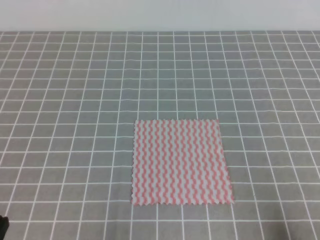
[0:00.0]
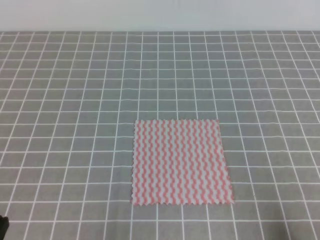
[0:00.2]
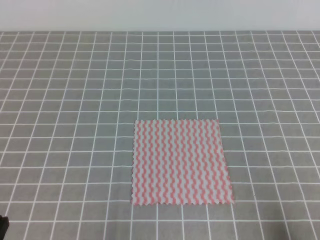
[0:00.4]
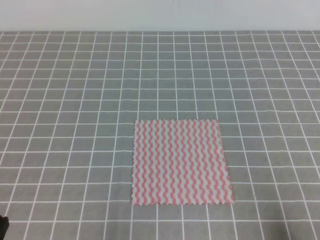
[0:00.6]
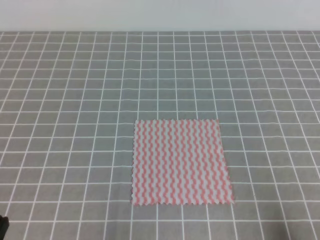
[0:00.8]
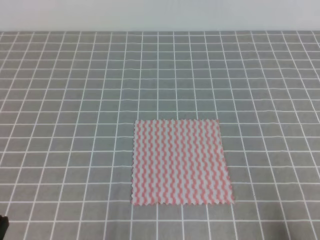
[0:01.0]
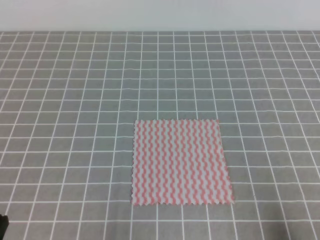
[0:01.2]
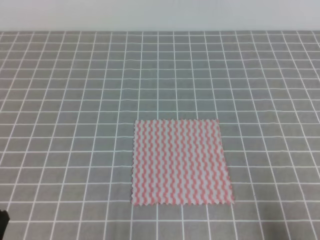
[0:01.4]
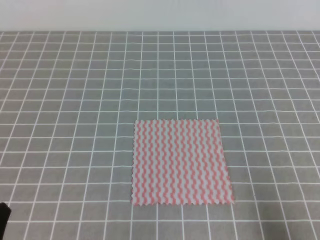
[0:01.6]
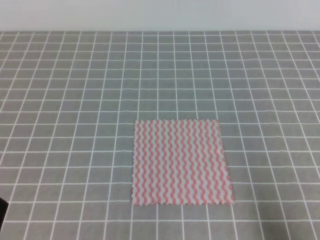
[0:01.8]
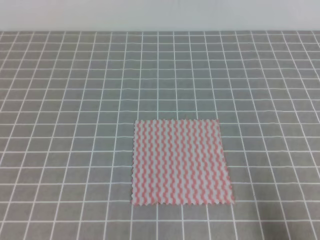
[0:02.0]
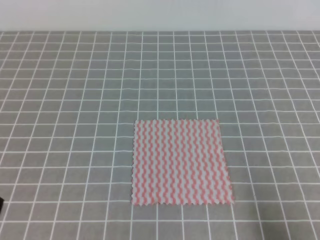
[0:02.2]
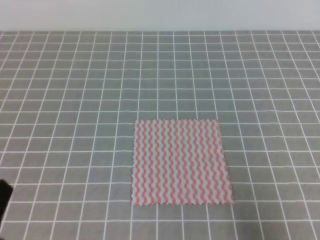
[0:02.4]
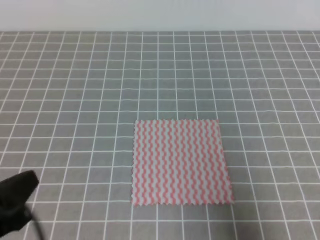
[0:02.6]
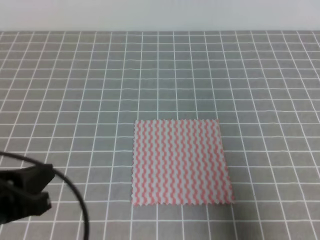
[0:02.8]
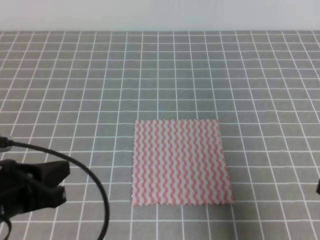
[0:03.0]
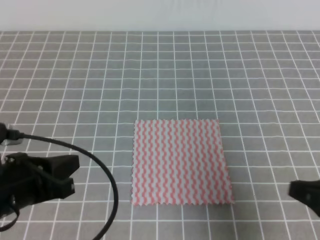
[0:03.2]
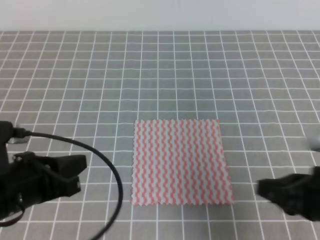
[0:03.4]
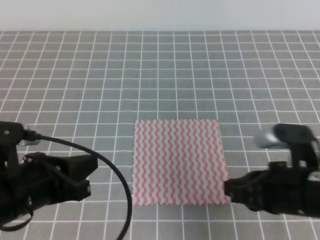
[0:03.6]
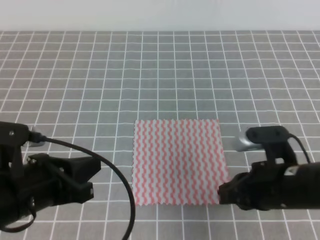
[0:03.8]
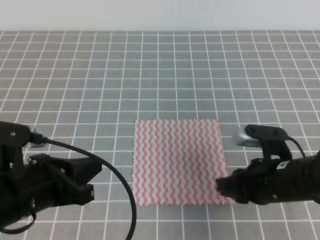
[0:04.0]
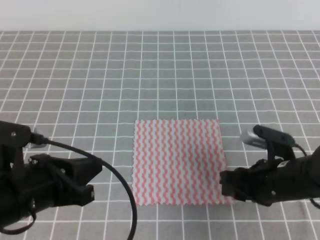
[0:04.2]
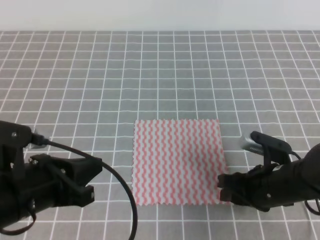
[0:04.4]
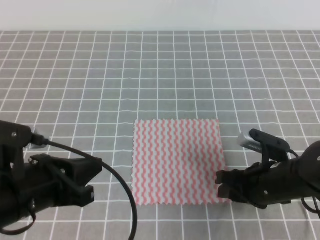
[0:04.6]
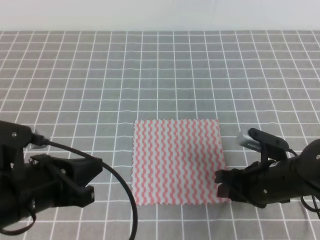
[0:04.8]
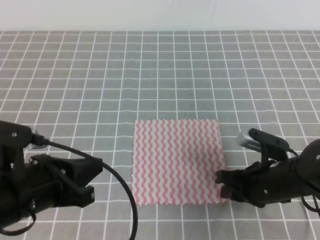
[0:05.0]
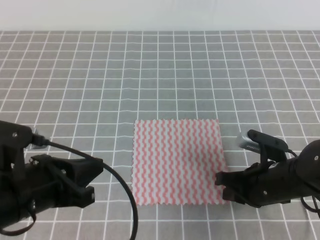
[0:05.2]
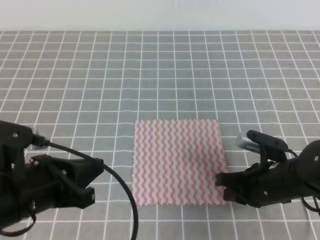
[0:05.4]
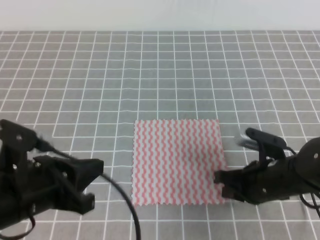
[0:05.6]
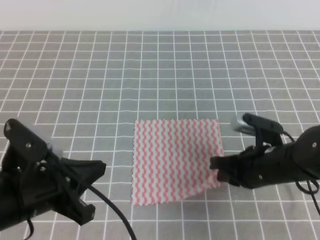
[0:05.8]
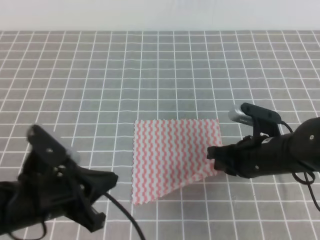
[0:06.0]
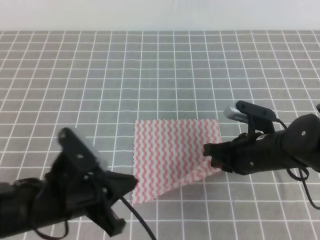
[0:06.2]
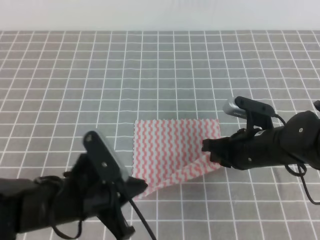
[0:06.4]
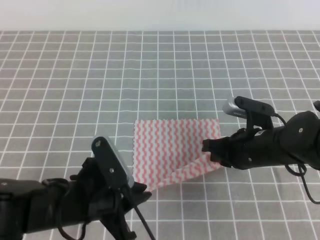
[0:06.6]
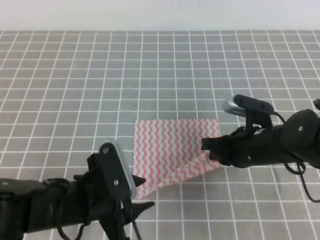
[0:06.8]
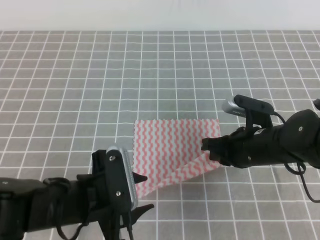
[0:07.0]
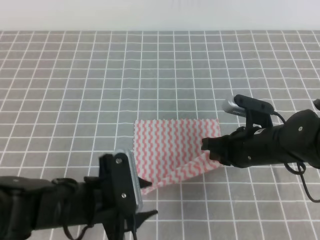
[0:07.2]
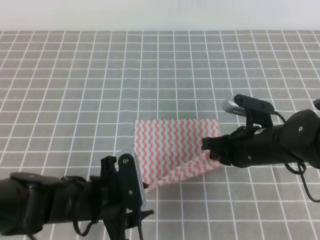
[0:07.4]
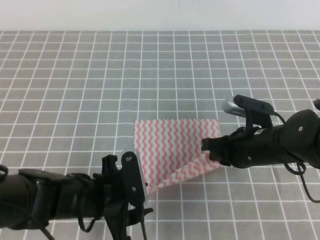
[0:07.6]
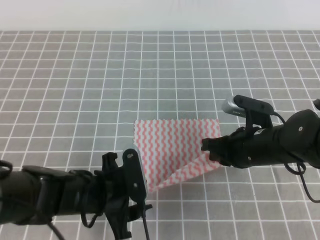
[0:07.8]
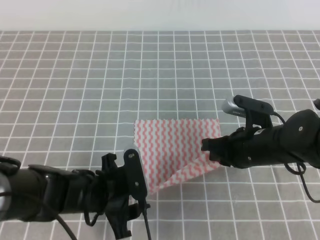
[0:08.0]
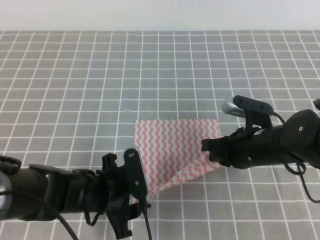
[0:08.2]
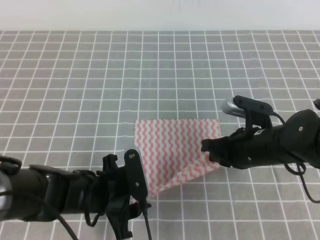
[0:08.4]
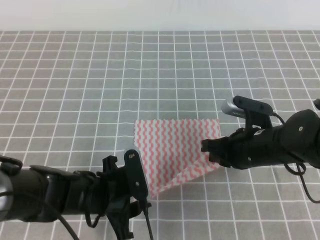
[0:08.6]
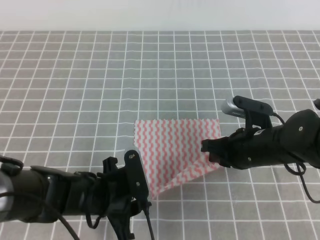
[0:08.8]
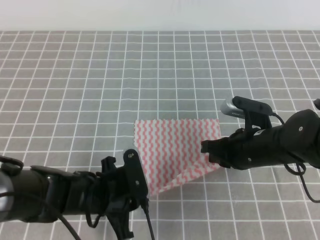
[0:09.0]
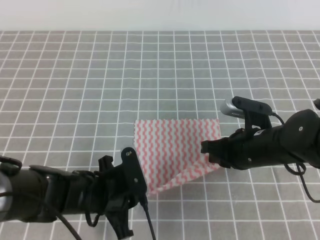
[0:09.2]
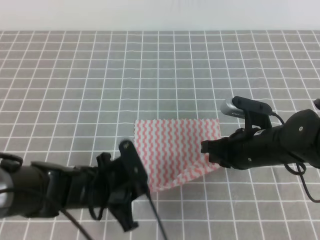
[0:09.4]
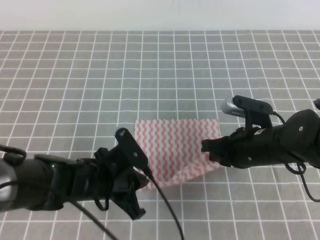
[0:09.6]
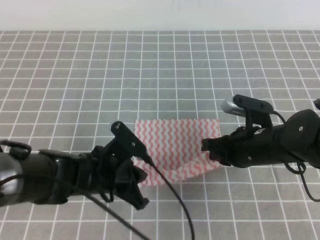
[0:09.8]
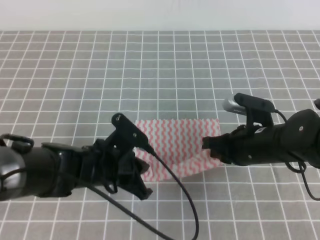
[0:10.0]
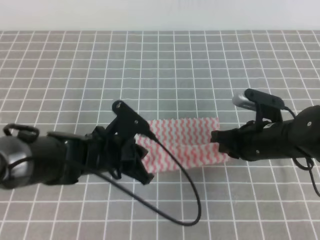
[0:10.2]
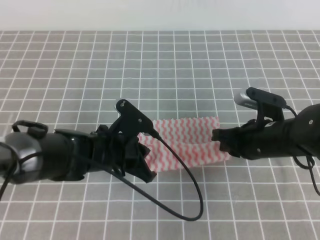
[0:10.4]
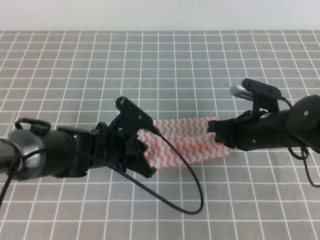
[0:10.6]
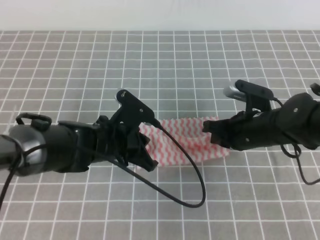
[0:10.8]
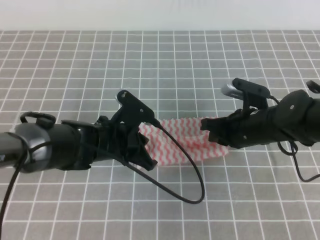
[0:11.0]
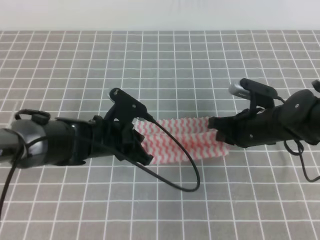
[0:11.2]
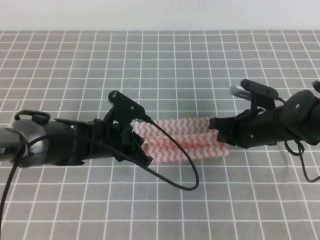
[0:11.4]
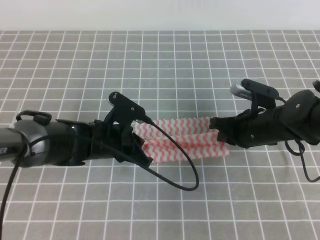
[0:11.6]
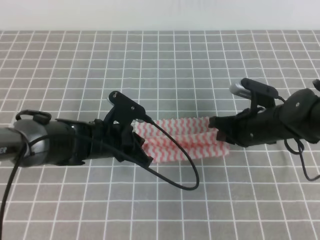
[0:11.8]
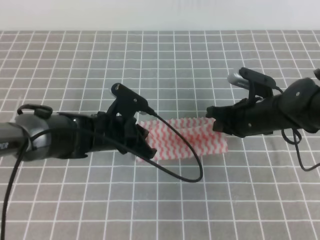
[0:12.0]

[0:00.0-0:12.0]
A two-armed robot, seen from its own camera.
0:01.6 to 0:03.0: Both grippers travel together forward and upward, some 10 cm.
0:03.0 to 0:04.4: The right gripper is displaced forward, to the left and downward by about 20 cm, and opens its fingers.
0:04.4 to 0:06.0: The right gripper closes.
0:06.0 to 0:07.6: The left gripper travels downward and to the right by some 10 cm, and opens its fingers.
0:07.6 to 0:09.0: The left gripper closes.
0:09.0 to 0:10.4: The left gripper travels forward by some 5 cm.

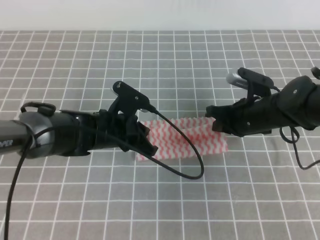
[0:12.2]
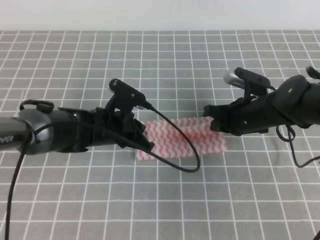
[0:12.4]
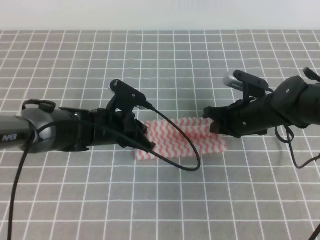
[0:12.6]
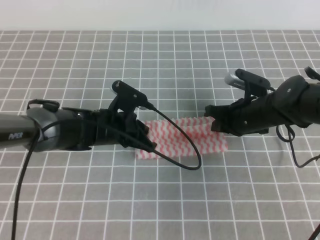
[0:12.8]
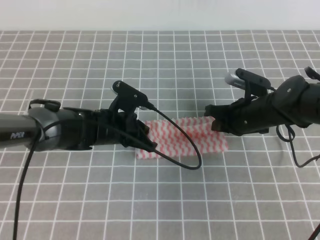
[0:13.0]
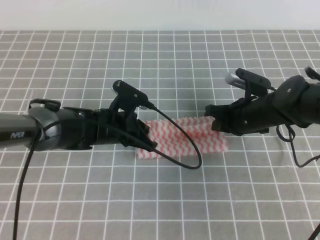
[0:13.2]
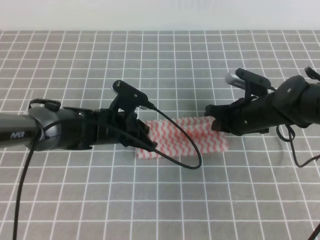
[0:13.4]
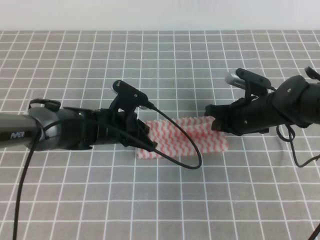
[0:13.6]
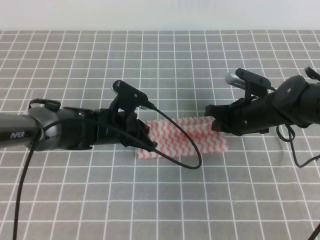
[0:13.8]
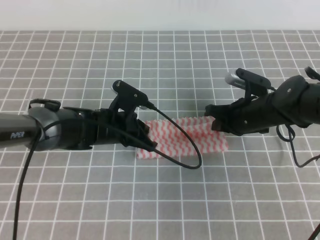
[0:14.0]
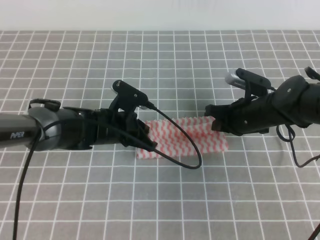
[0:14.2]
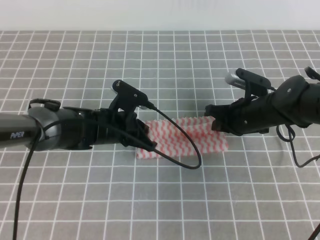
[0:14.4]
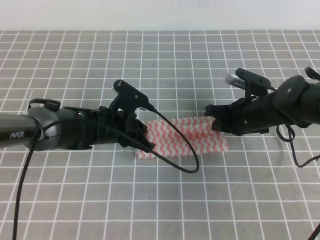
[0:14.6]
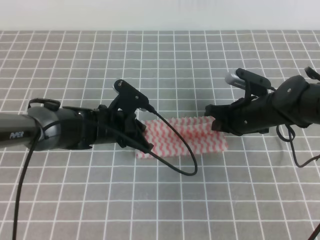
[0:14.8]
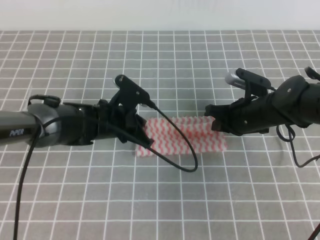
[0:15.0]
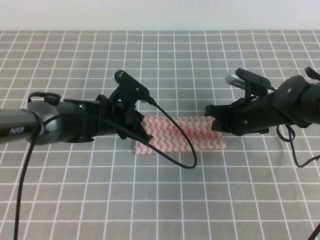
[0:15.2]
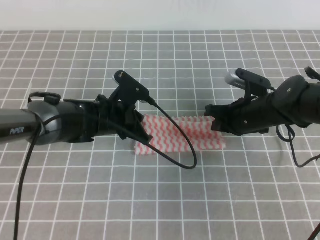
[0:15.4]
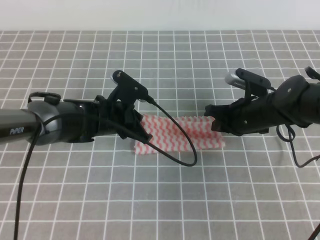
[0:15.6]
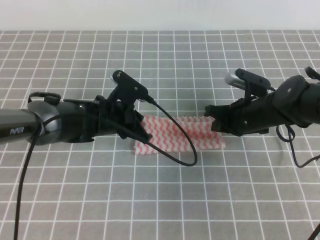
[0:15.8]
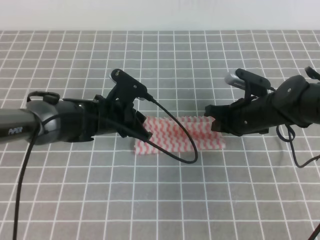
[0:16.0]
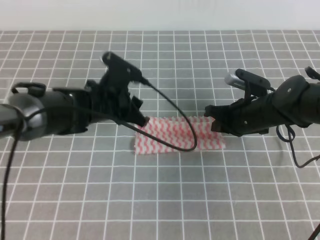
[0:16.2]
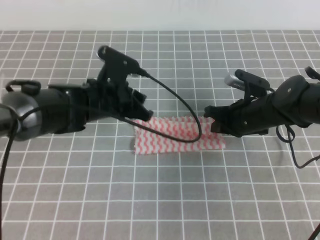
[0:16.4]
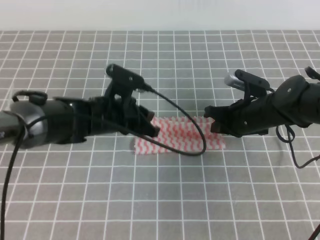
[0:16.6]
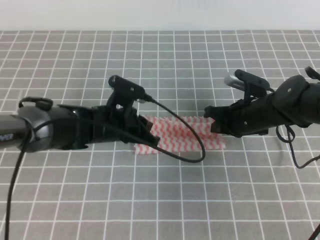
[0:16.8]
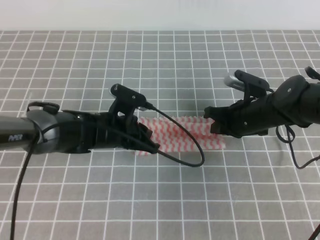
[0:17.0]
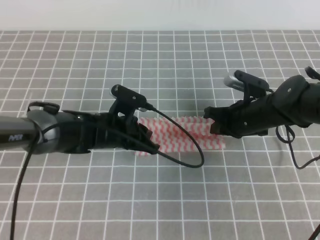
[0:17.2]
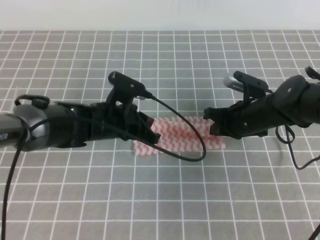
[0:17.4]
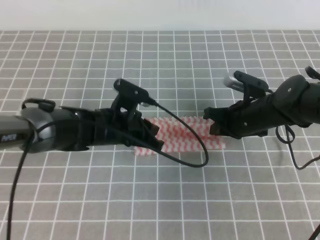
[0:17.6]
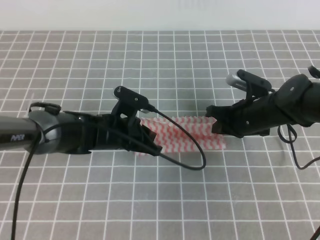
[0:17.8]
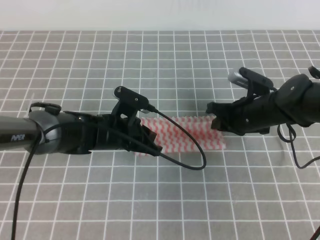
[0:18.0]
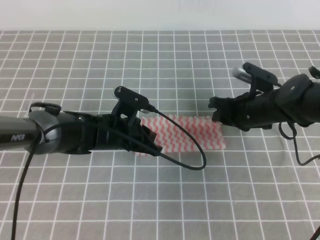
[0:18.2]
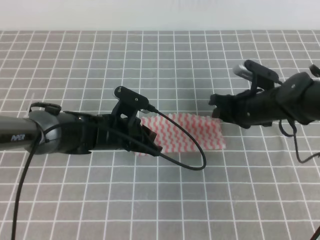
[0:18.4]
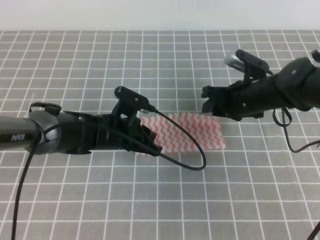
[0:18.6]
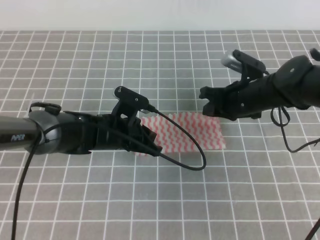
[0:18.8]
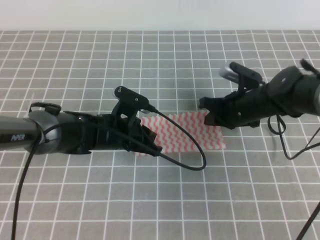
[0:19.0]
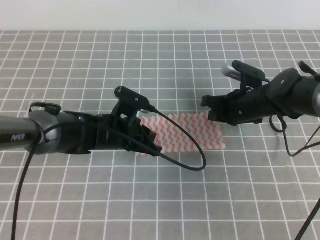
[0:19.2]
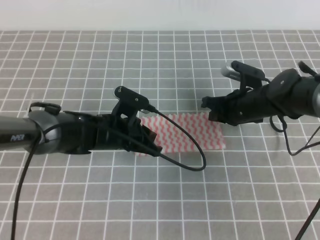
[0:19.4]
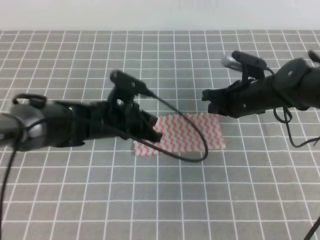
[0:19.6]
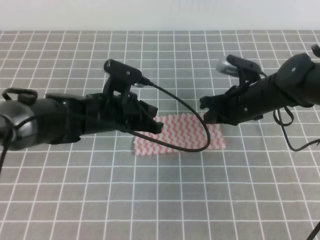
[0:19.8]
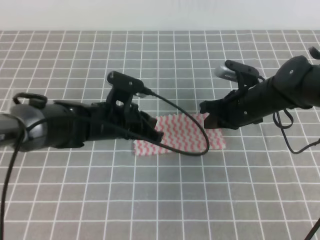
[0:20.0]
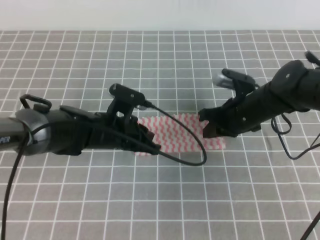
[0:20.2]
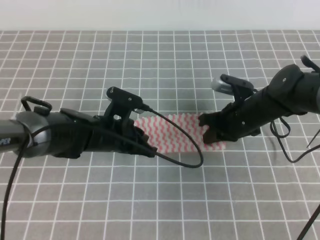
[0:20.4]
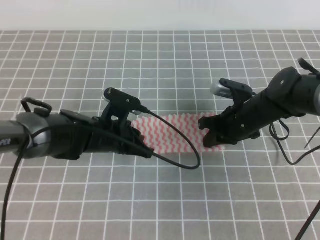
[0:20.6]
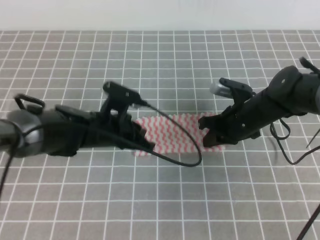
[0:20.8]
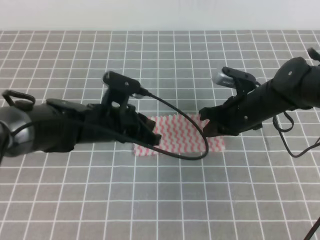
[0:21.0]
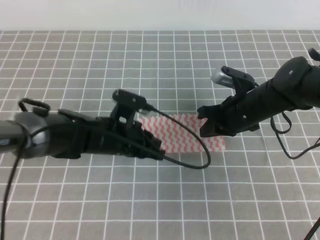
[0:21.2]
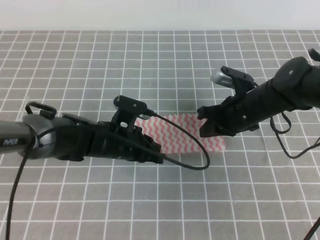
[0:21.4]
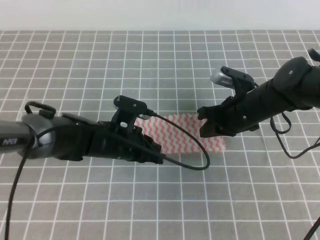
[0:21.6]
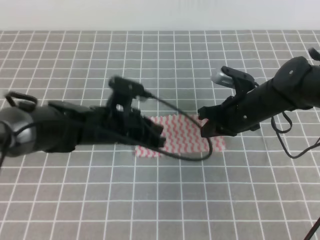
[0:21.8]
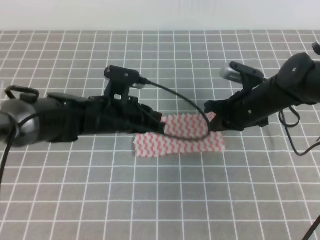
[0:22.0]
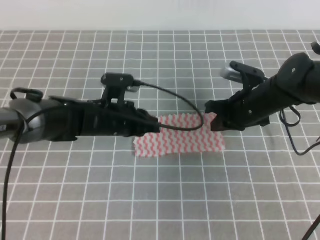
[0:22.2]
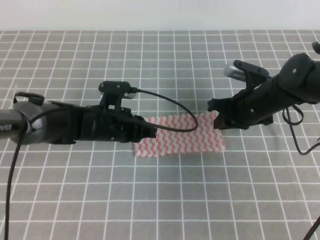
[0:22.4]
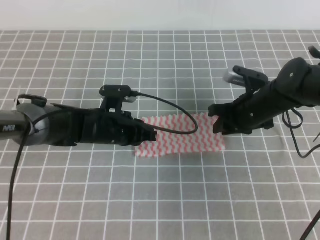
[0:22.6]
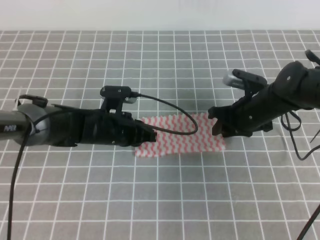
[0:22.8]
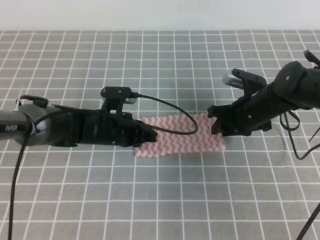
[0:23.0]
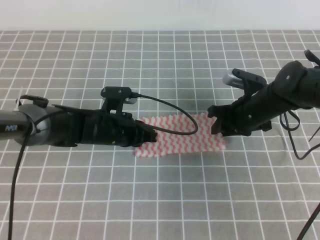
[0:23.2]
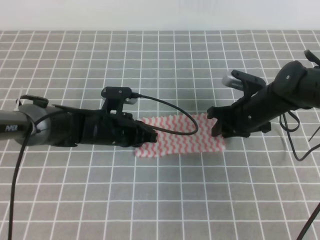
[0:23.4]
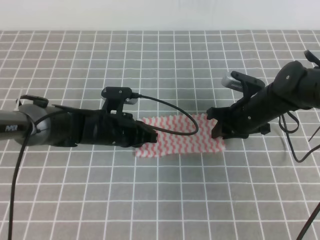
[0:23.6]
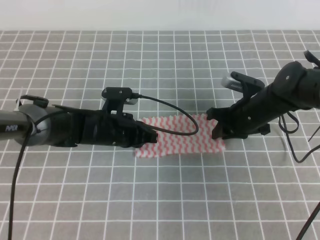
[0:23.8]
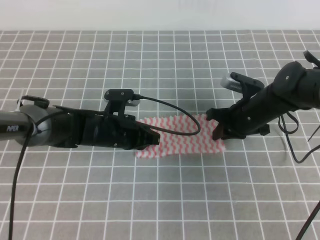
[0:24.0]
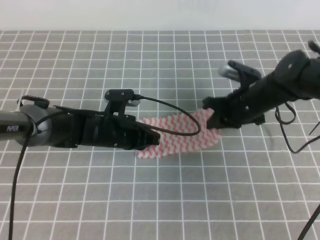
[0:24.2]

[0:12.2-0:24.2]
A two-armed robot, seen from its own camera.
0:12.2 to 0:15.2: The grippers move only a little.
0:15.2 to 0:16.6: The left gripper opens, then closes again.
0:16.6 to 0:18.2: The left gripper shifts by some 5 cm. The right gripper opens up.
0:18.2 to 0:19.8: The right gripper closes its fingers.
0:19.8 to 0:21.2: The grippers move only a little.
0:21.2 to 0:22.6: The right gripper opens up.
0:22.6 to 0:24.2: The right gripper closes its fingers.
